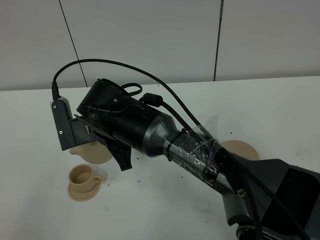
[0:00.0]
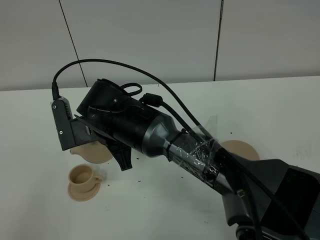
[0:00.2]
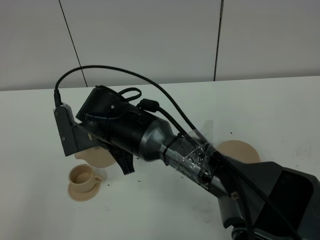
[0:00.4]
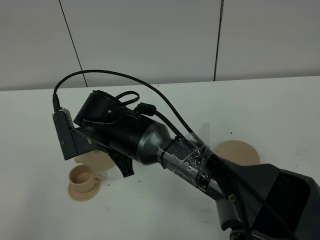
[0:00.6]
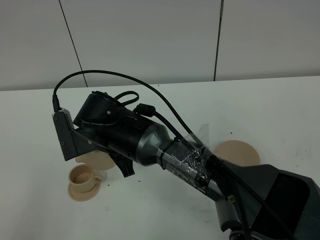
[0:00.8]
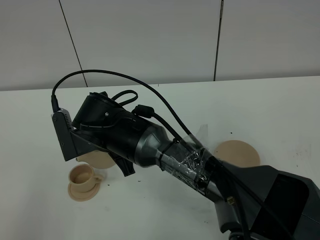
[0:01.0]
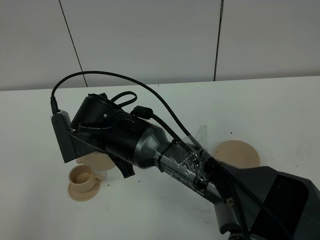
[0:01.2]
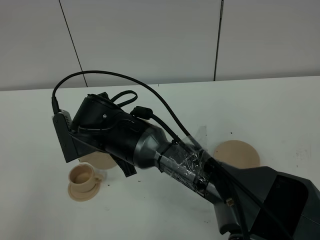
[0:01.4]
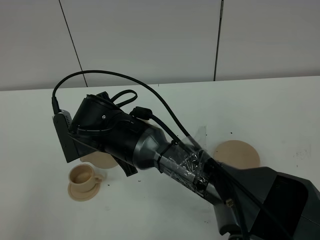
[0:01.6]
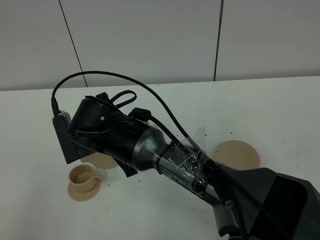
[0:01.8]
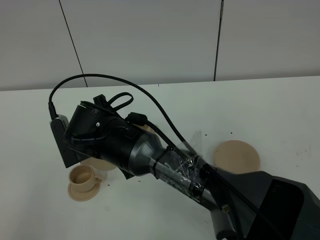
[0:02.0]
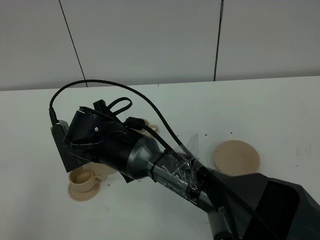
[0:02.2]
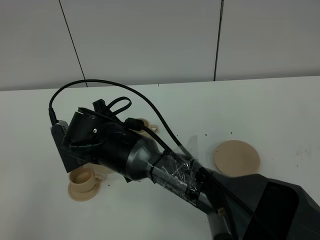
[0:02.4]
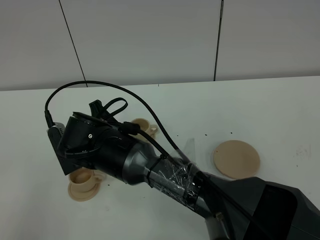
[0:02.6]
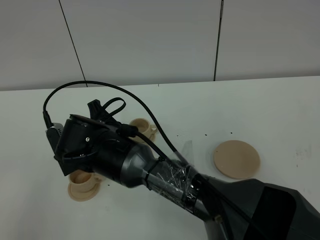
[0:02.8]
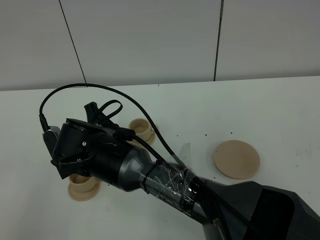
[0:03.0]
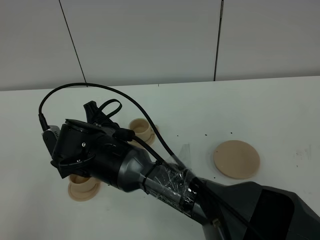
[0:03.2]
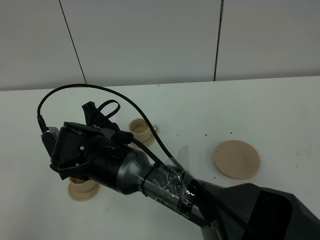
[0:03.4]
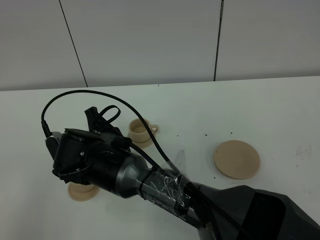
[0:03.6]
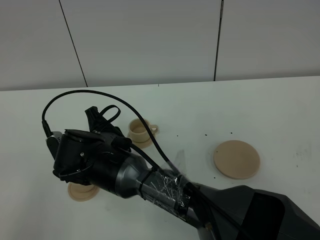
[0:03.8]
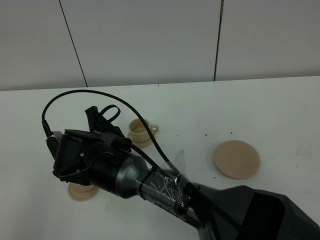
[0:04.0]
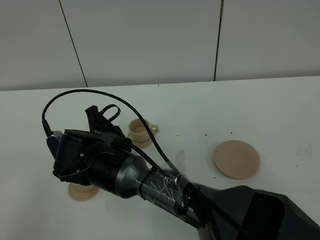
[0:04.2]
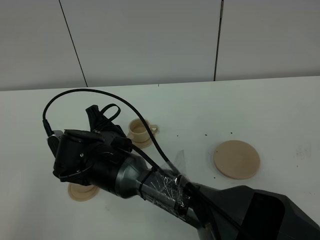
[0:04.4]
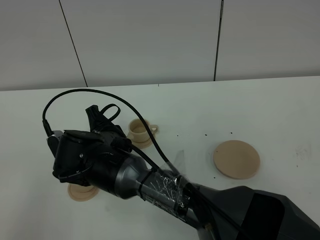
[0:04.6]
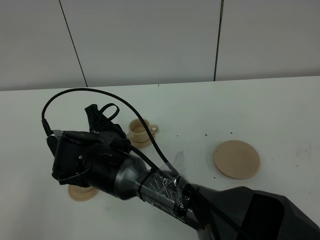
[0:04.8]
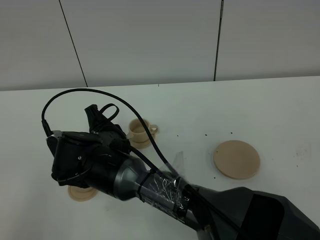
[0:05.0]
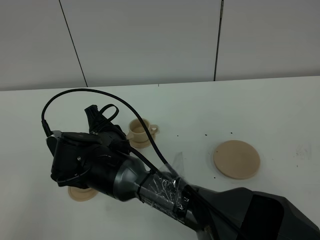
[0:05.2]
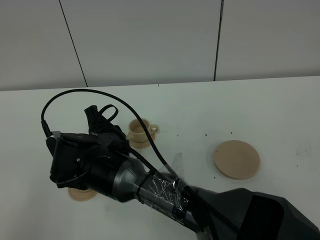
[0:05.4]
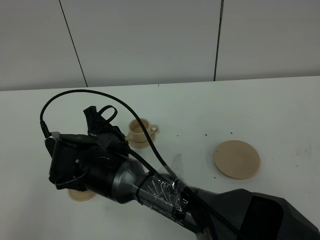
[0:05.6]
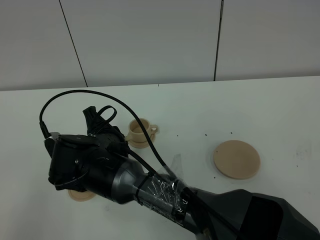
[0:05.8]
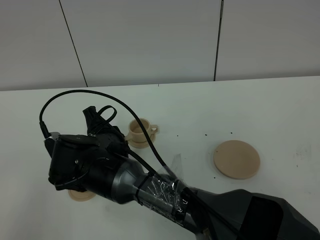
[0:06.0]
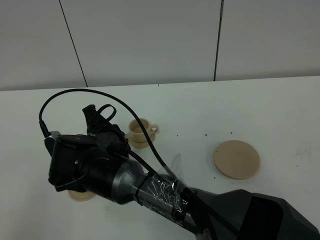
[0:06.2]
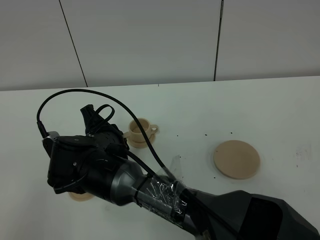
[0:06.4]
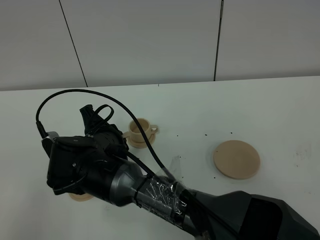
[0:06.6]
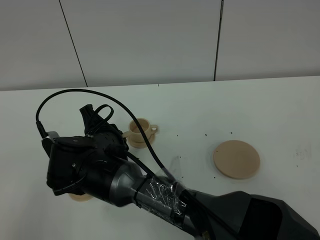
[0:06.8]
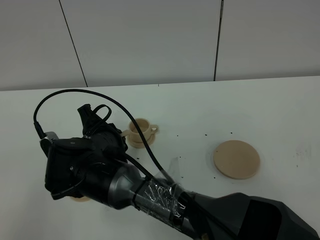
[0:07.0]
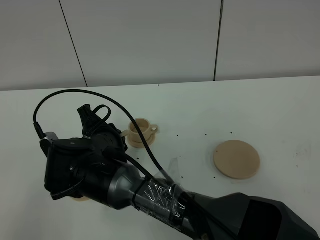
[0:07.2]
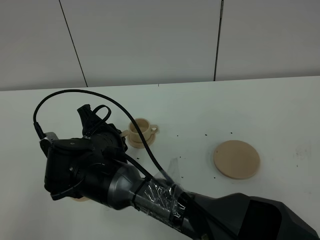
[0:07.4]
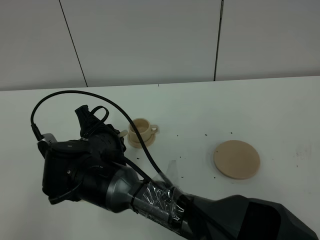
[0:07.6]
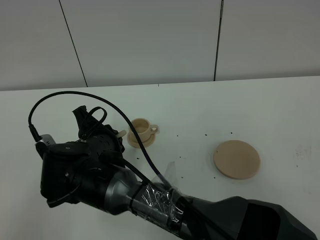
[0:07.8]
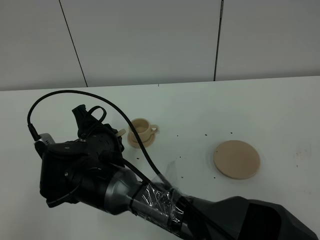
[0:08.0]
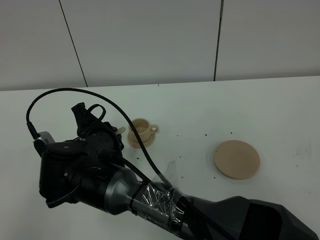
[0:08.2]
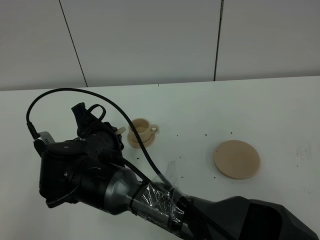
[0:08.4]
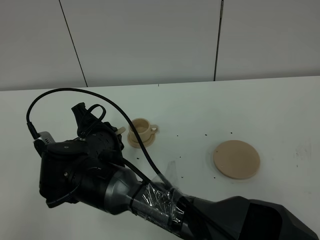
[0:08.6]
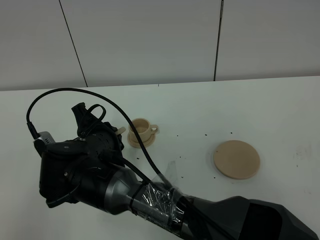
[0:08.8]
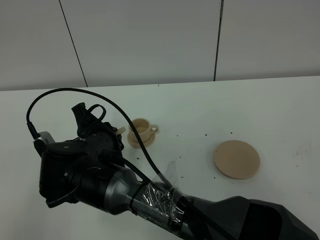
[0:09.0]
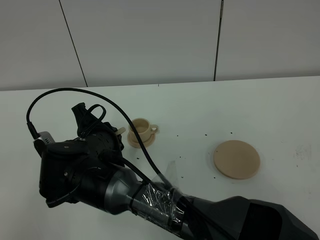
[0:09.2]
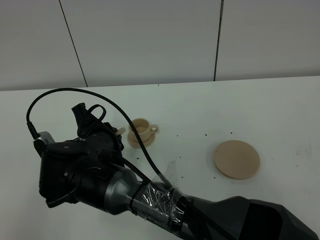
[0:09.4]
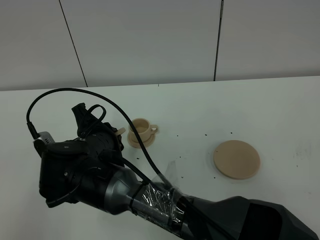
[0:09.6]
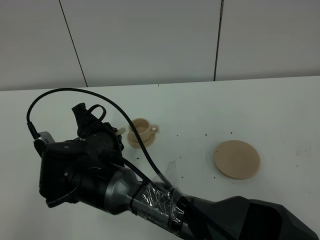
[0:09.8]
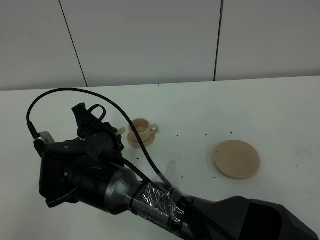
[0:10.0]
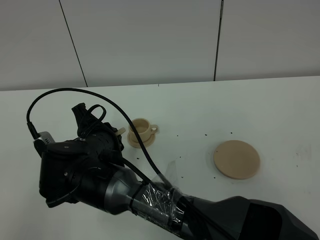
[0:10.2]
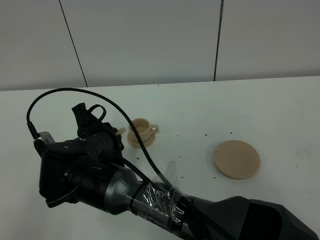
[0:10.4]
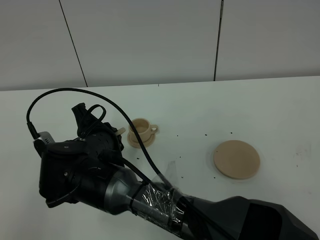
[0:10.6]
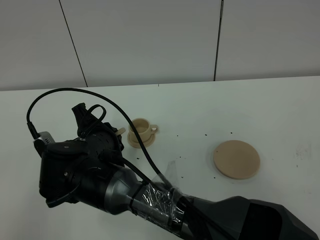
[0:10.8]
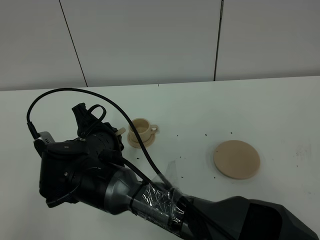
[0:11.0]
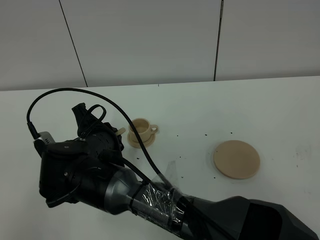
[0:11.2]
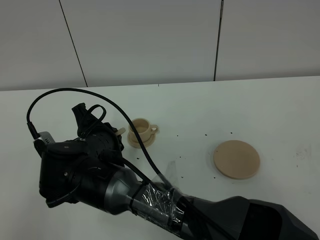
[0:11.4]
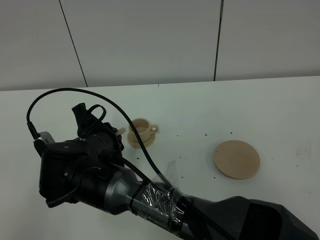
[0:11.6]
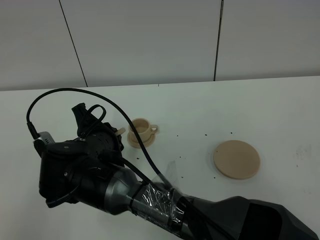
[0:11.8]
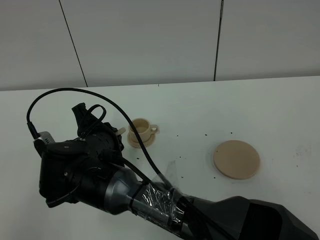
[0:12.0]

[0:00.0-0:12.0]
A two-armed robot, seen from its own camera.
Task of the whole recording: grasp the brown teapot and pour the tea into the two brown teacups one by one, put the brown teapot back in its original place.
0:00.0 to 0:03.0: There are only small adjustments of the grippers.
0:03.0 to 0:04.4: The grippers move only a little.
0:04.4 to 0:06.0: The two grippers keep their place.
0:06.0 to 0:07.6: Both grippers stay about where they are.
0:07.6 to 0:12.0: Both grippers stay about where they are.

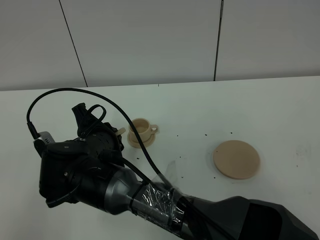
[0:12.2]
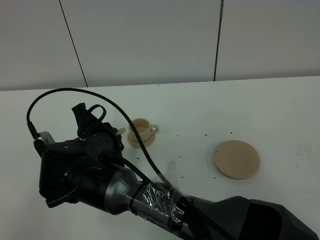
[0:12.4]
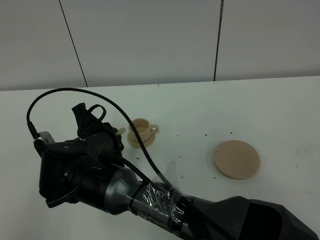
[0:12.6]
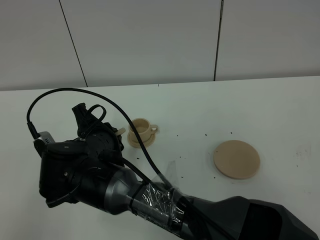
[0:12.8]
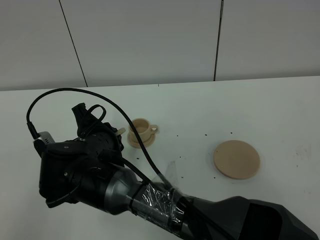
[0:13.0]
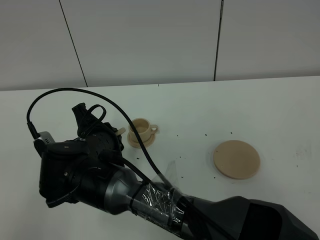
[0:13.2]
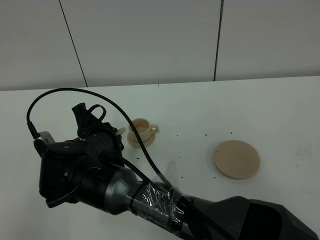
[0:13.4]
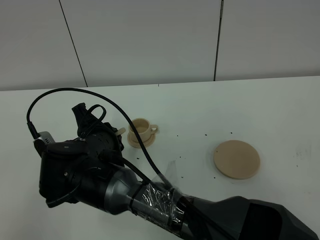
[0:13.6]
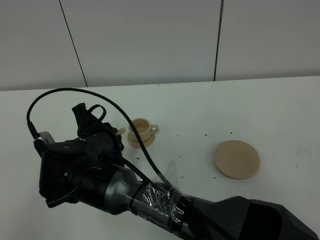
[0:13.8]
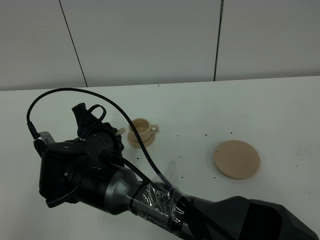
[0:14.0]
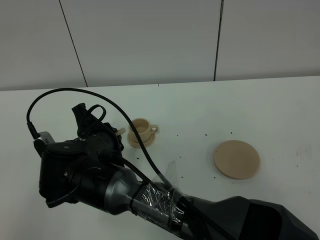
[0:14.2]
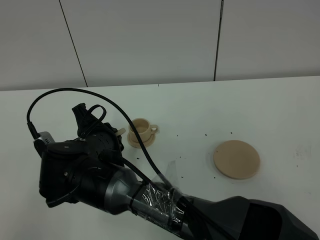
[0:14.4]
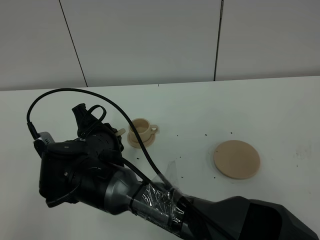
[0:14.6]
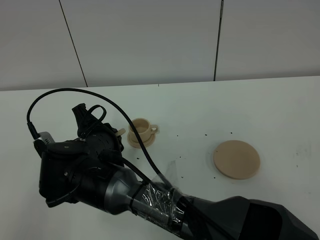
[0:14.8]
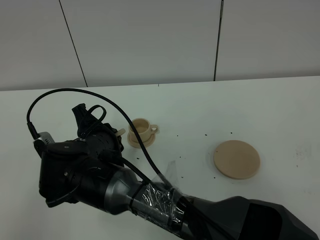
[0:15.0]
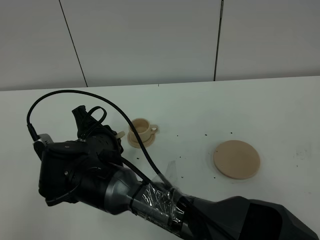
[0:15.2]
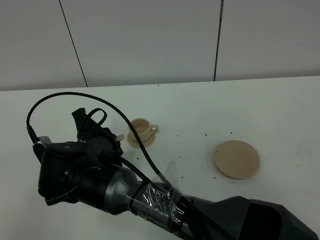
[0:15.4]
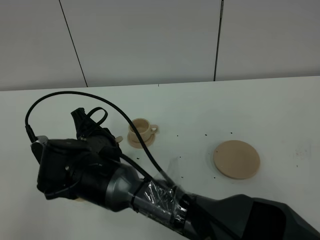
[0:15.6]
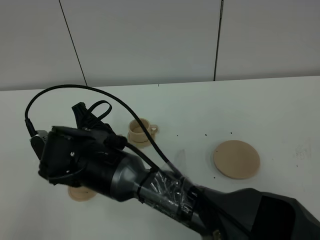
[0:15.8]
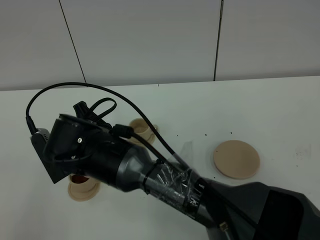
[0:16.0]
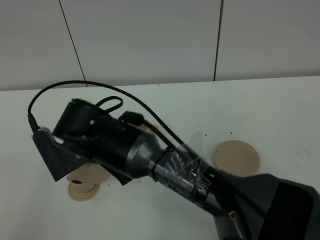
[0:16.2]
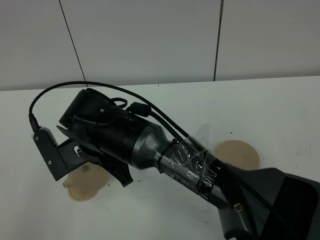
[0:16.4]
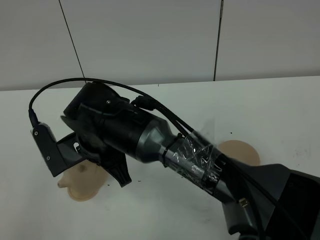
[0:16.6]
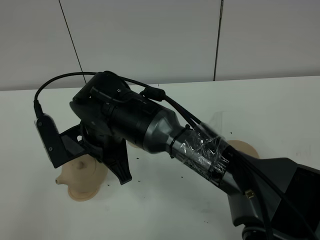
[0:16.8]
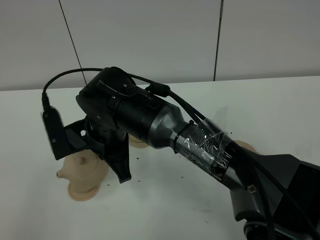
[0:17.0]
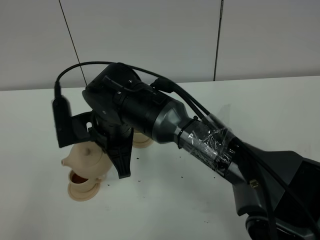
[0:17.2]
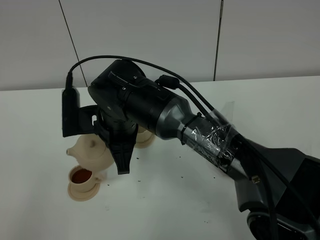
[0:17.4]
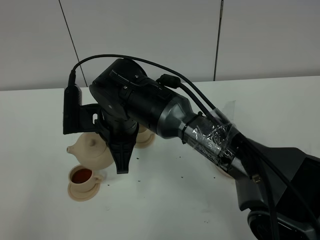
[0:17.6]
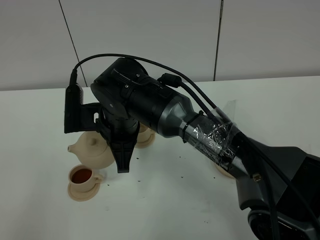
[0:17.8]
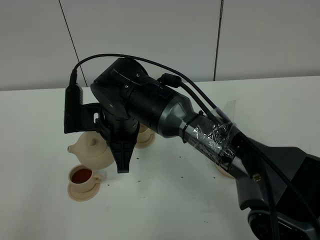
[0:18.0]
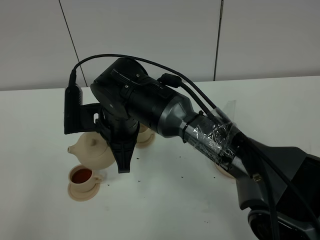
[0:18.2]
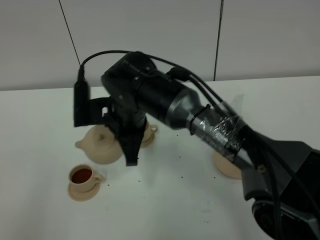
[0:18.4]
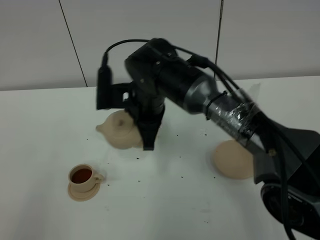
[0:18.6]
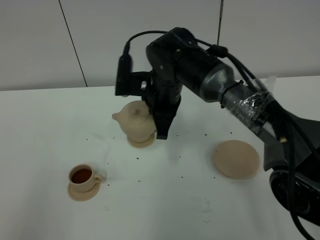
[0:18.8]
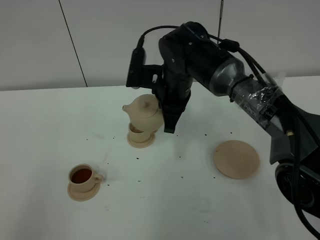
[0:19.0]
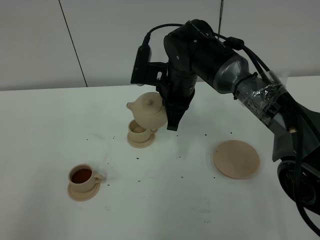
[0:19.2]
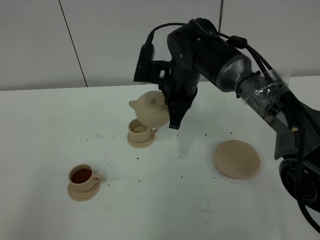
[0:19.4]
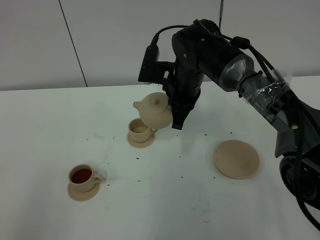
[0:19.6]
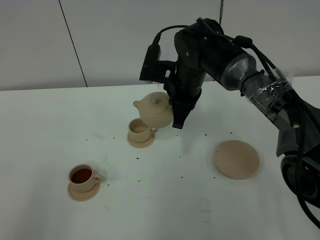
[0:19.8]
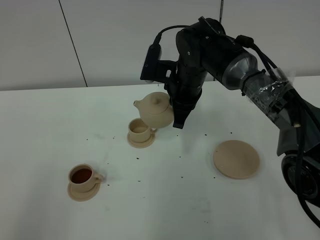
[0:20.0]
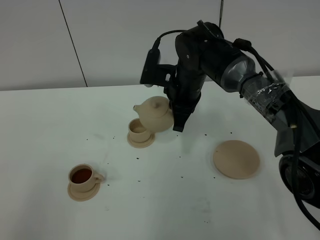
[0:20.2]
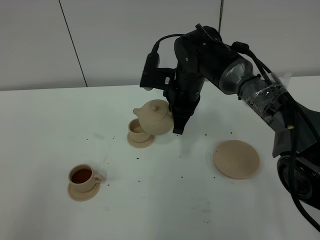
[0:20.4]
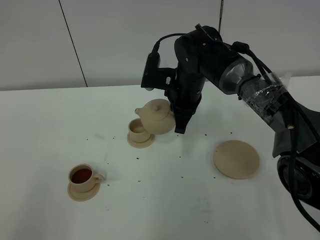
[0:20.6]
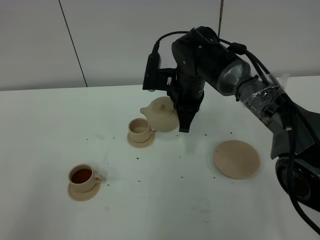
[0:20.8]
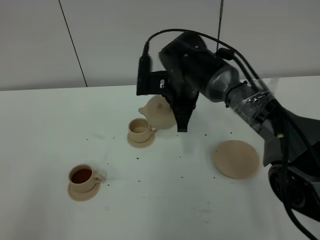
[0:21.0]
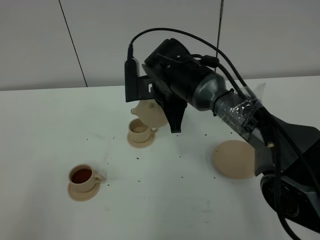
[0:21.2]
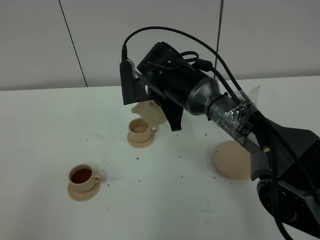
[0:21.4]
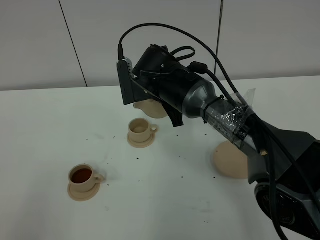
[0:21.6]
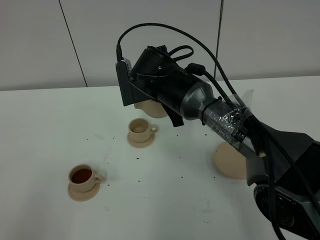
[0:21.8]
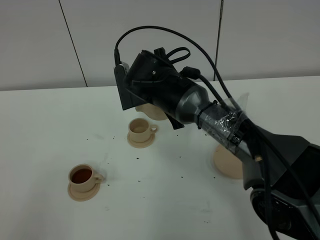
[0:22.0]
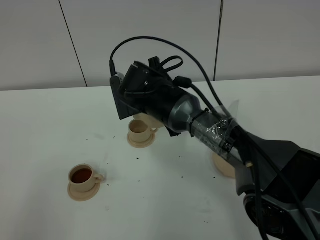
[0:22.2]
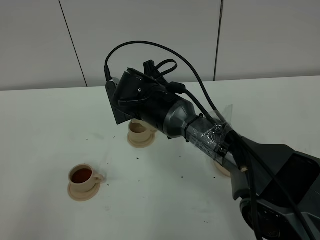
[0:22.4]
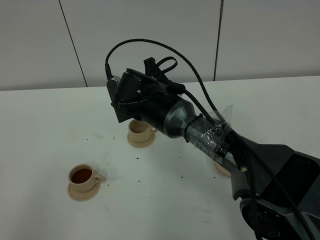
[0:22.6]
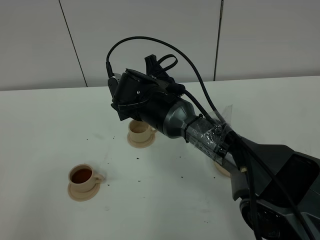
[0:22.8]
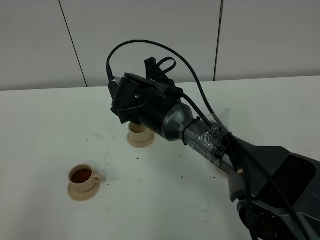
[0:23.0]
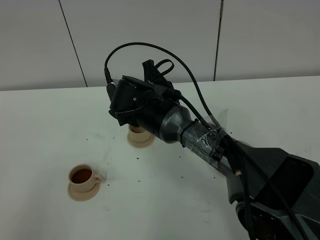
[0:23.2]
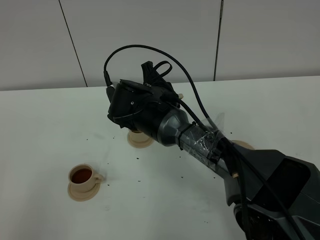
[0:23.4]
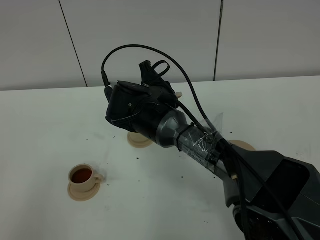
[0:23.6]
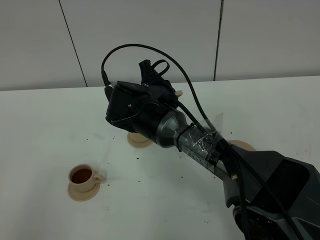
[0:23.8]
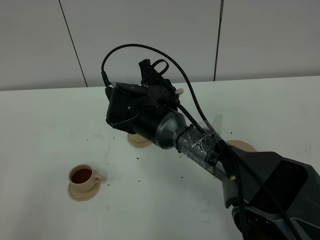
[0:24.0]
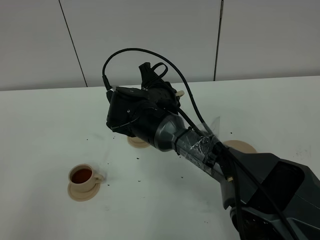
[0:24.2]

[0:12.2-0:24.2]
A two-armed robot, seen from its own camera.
Task of the whole recording: grasp the brown teapot and pour the tea into the two brown teacups one by one, put the brown teapot back in its original place.
Step, 0:12.2 to 0:15.8: Pour tea into the teacup with the right gripper.
0:12.2 to 0:15.2: Neither gripper changes place.
0:15.2 to 0:16.6: The right gripper changes place by some 5 cm.
0:18.2 to 0:19.8: The right gripper shifts about 15 cm to the right and forward.
0:22.6 to 0:24.2: The grippers move only a little.
